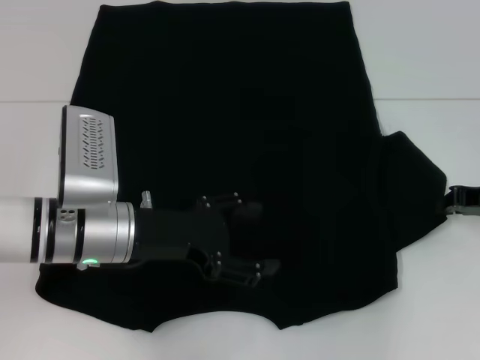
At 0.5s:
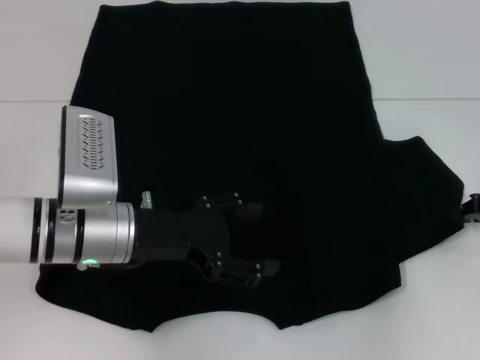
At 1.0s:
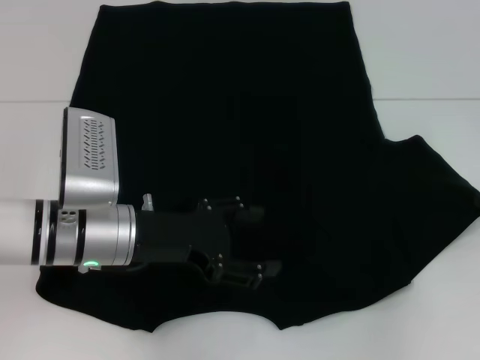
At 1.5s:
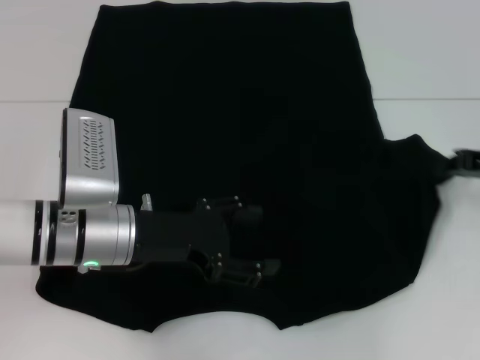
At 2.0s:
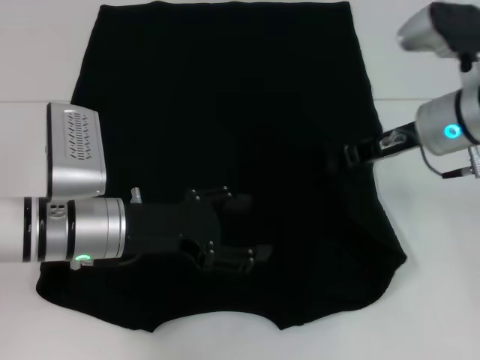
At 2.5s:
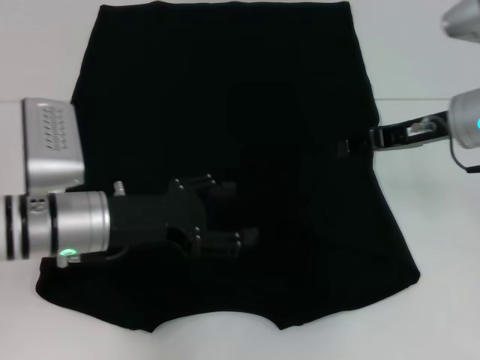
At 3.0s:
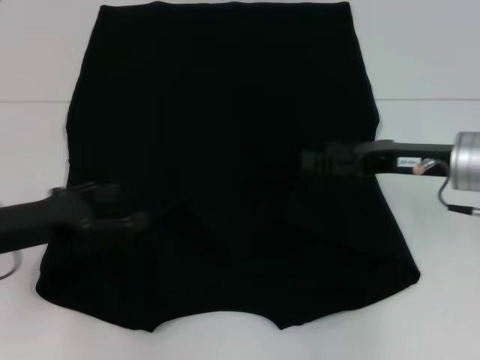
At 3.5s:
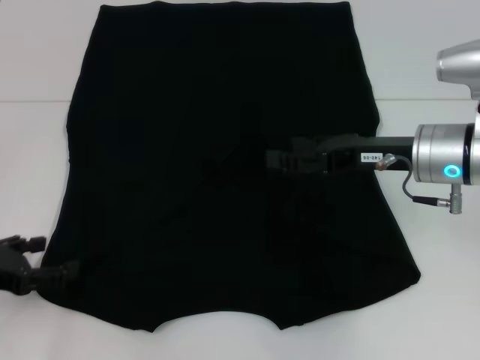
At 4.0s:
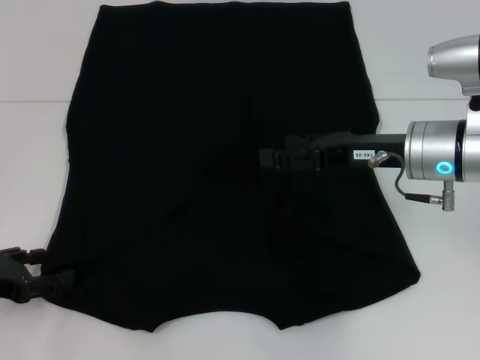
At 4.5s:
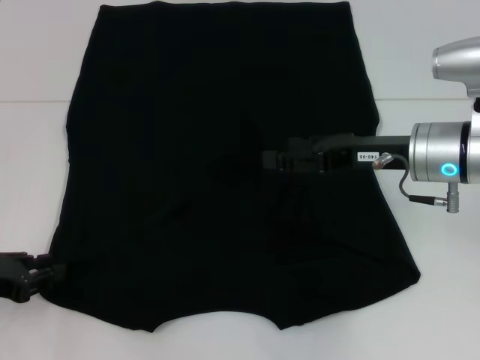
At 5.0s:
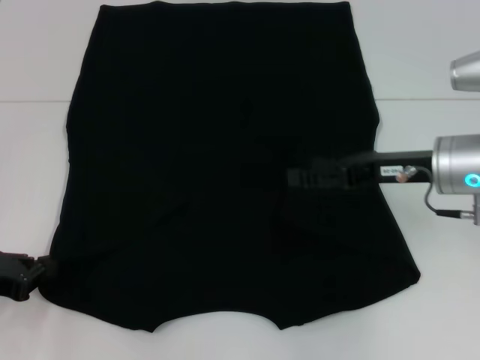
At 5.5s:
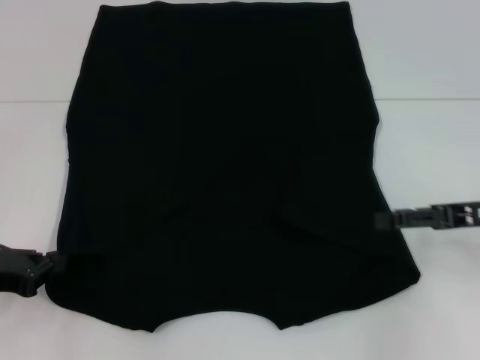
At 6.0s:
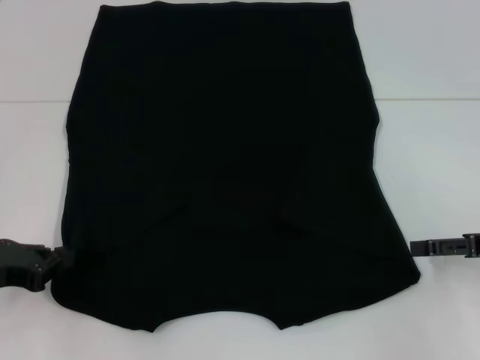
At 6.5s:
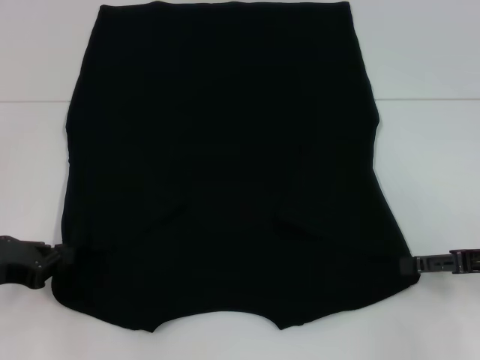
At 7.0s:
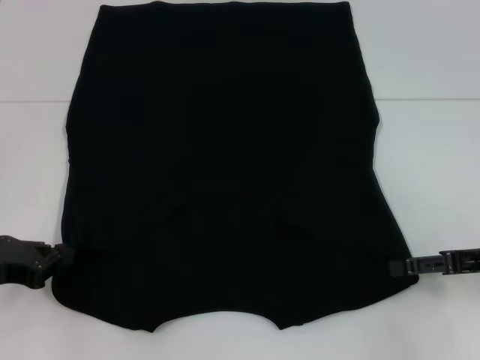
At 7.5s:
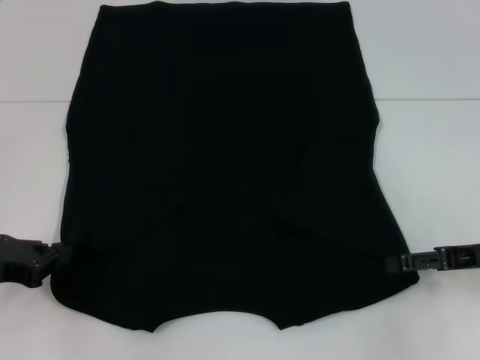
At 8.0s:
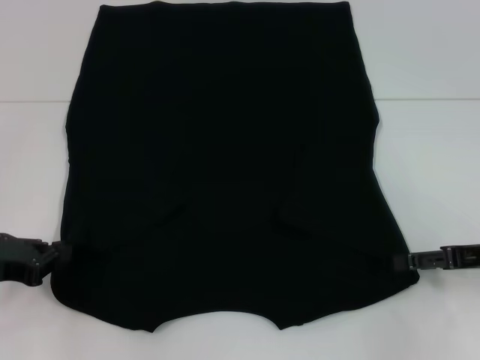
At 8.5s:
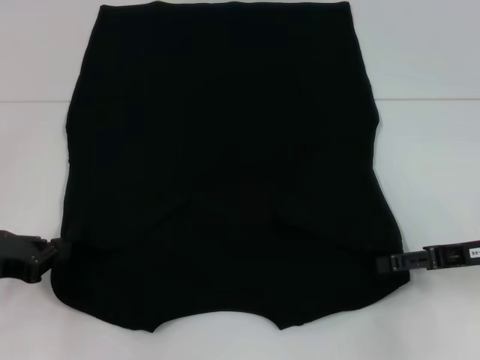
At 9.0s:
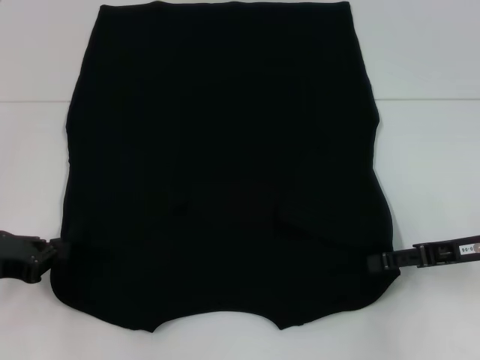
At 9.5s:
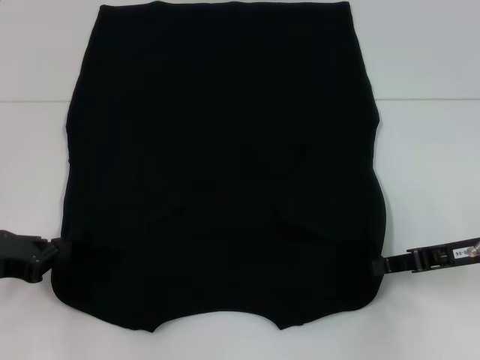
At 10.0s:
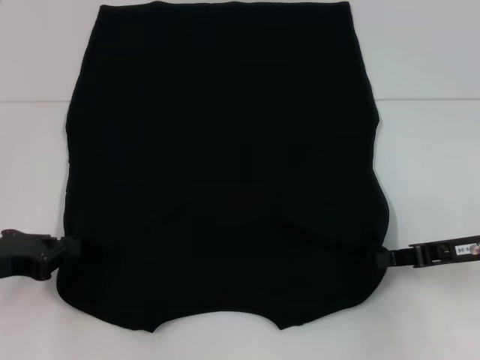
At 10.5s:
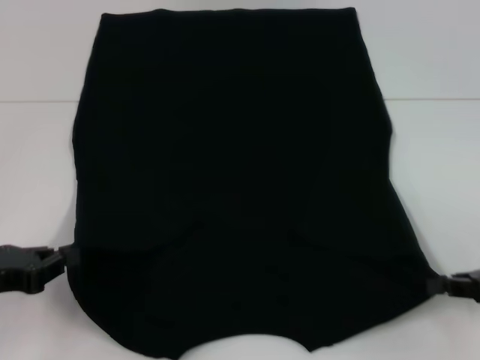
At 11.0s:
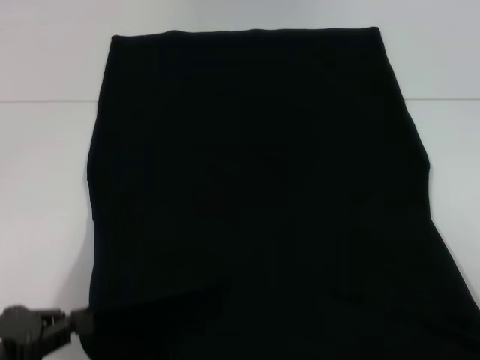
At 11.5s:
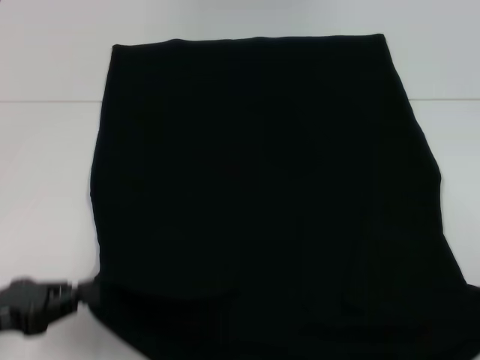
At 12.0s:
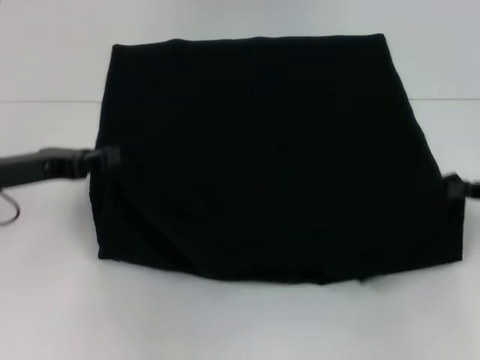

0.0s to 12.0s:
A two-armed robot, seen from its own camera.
Step, 0.0s to 2.0s: Fold the bottom right sleeve with your right hand.
Step, 2.5s to 5.0s: Grab the bottom left corner with your left hand.
Step, 5.5s to 9.5s: Grab the bottom right corner with your right hand.
0.0s to 2.0s: The right gripper shifts roughly 15 cm to the left and upward.
2.0s to 4.0s: The left gripper shifts about 15 cm to the left. Meanwhile the right gripper opens up.
4.0s to 6.0s: The right gripper goes roughly 15 cm to the right and backward, while the left gripper closes up.
6.0s to 8.0s: The grippers make only small movements.
8.0s to 10.0s: The right gripper closes up.
10.0s to 12.0s: The right gripper heads to the right, covering roughly 5 cm, and travels backward and back again, some 10 cm each way, while the left gripper travels forward by approximately 5 cm.

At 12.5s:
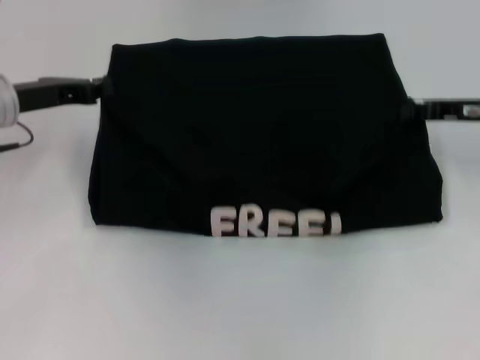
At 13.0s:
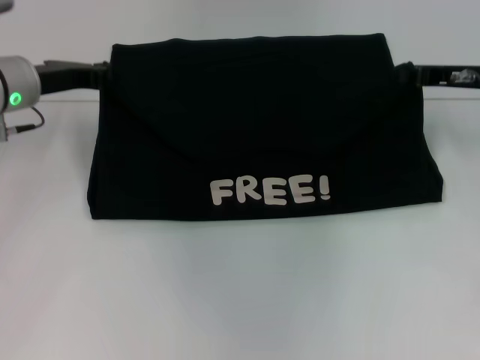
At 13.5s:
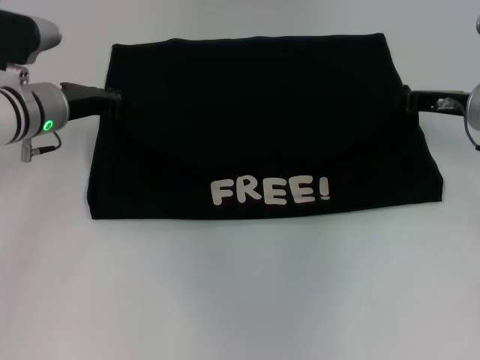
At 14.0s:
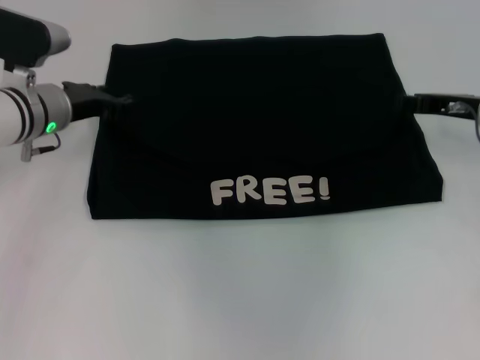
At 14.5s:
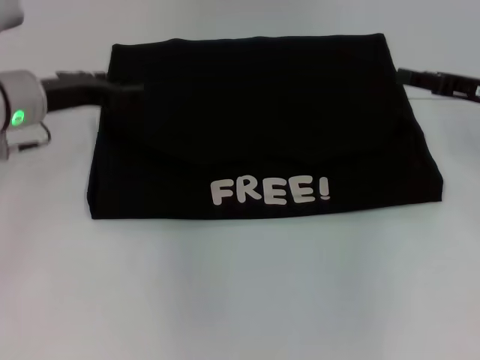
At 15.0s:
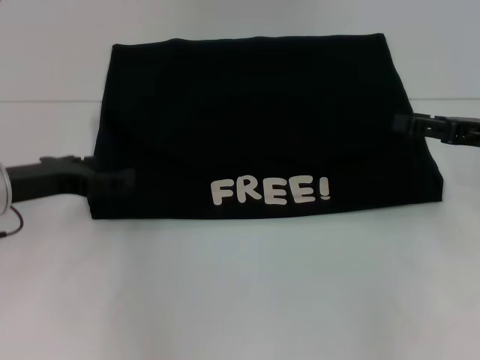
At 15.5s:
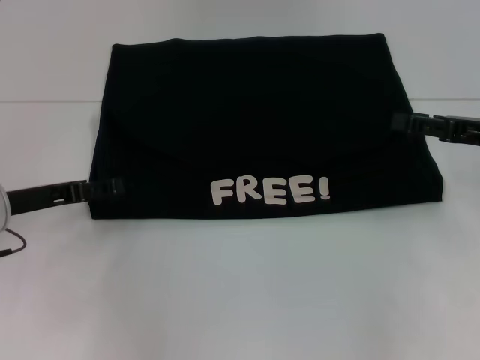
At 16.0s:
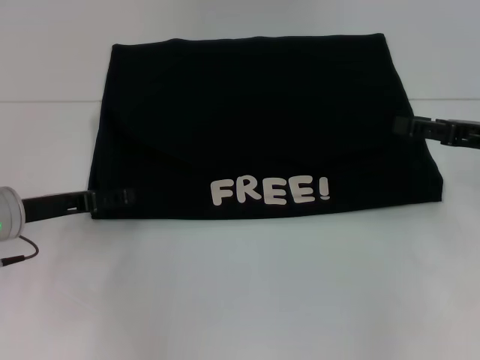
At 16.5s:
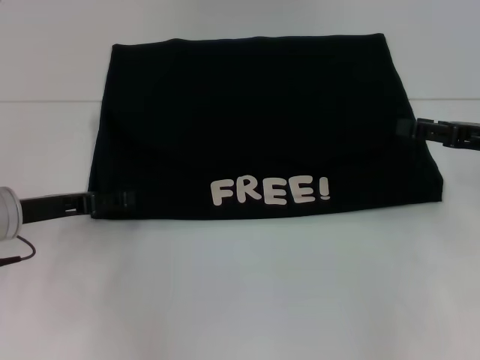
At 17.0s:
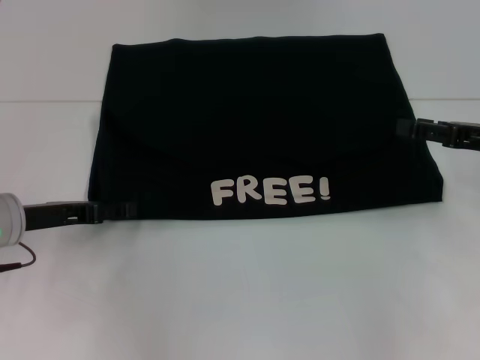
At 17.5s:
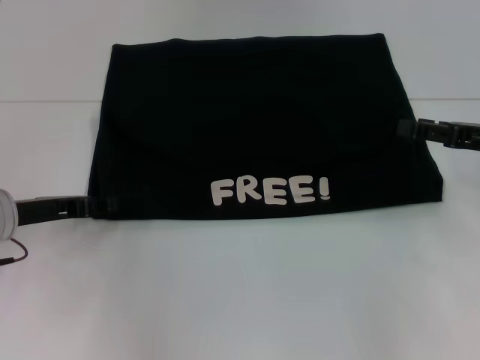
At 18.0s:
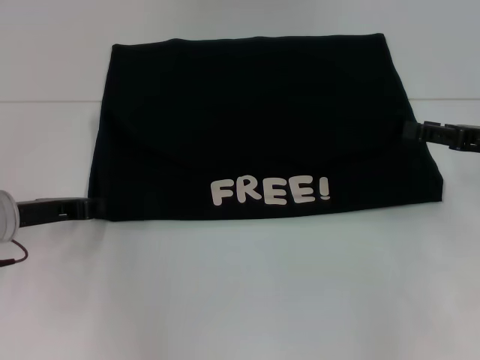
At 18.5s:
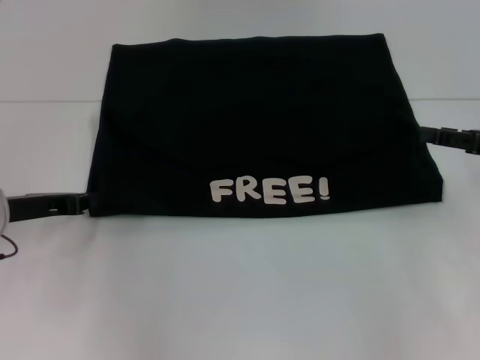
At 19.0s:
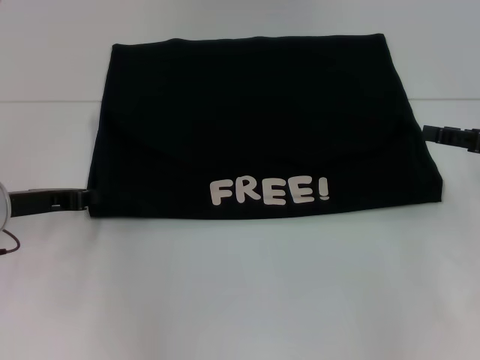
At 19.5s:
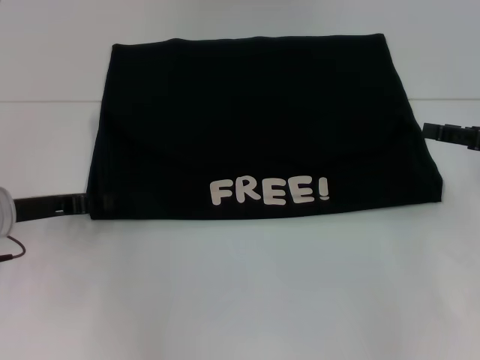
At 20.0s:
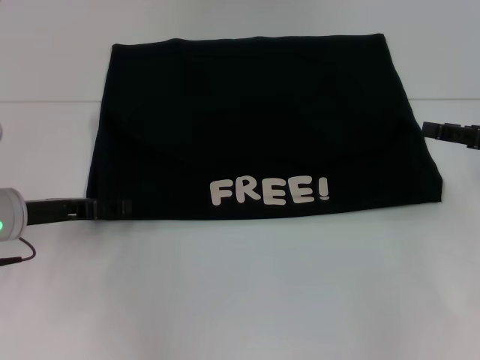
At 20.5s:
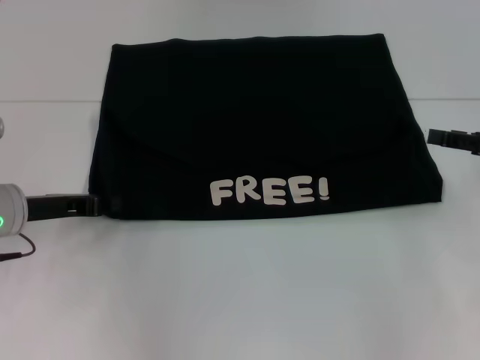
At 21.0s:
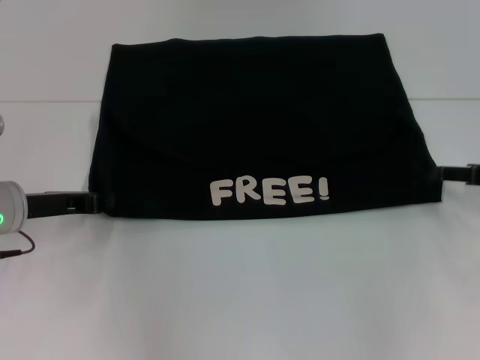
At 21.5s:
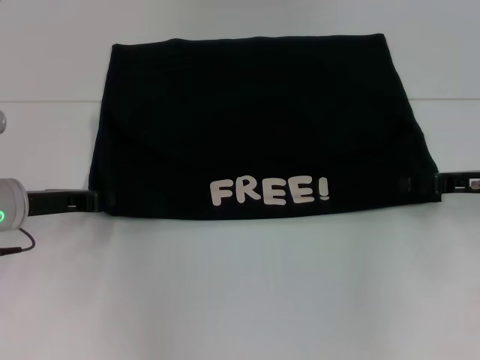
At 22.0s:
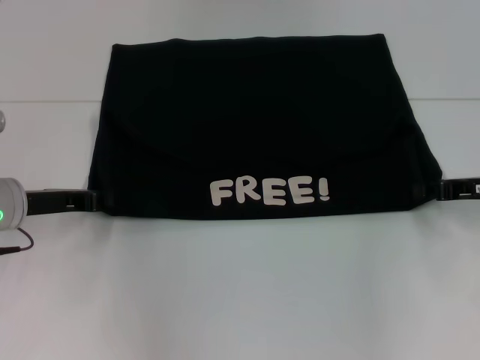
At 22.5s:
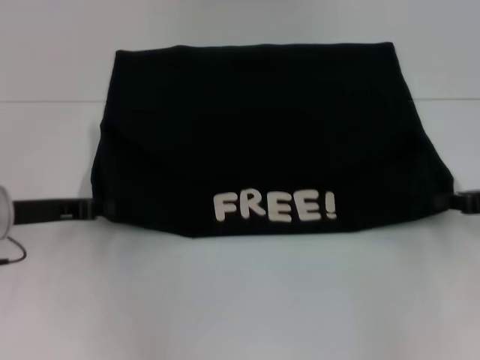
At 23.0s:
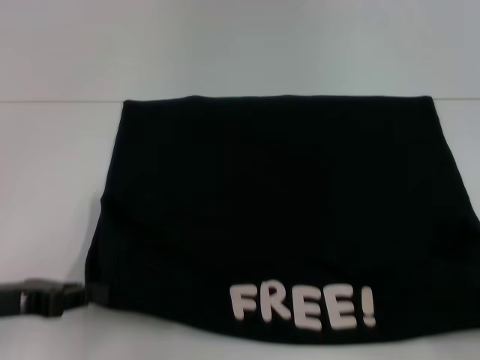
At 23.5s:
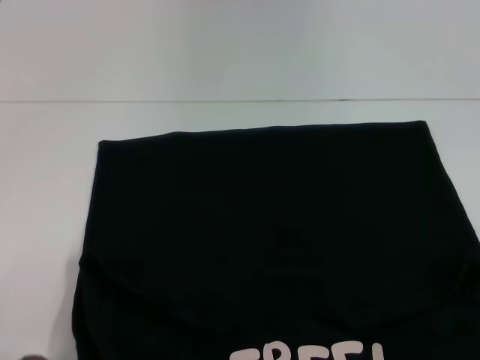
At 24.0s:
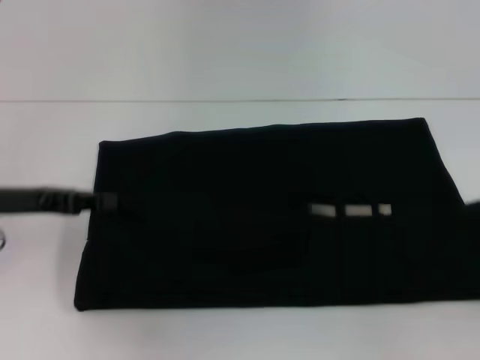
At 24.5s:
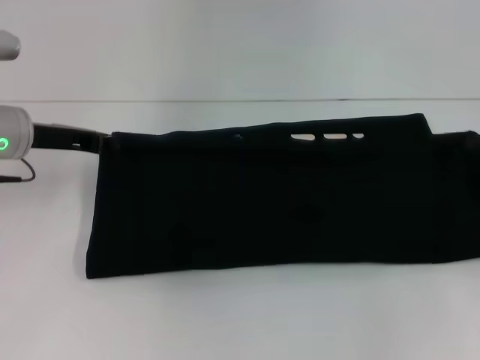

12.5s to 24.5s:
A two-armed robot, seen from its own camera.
Step, 14.0s to 23.5s: Pull the clothes with your left hand.
Step, 14.0s to 23.5s: Pull the clothes with your right hand.
12.5s to 14.5s: The right gripper opens; the left gripper opens its fingers.
14.5s to 16.5s: The left gripper moves backward and downward, some 10 cm.
16.5s to 18.5s: The left gripper closes.
18.5s to 20.5s: The left gripper opens, then closes again.
20.5s to 22.5s: The right gripper closes.
22.5s to 24.5s: The right gripper goes backward and returns, roughly 20 cm each way. The left gripper goes backward and returns, some 15 cm each way.

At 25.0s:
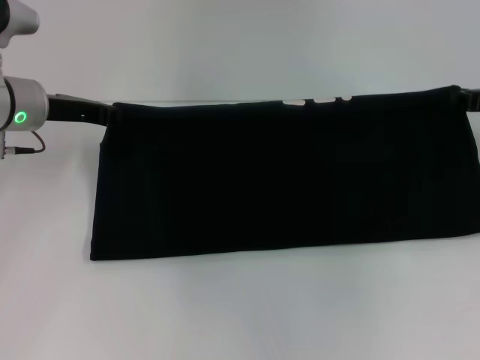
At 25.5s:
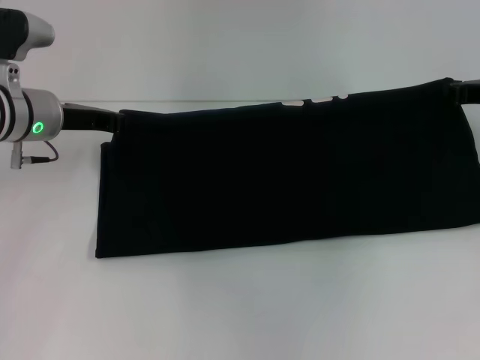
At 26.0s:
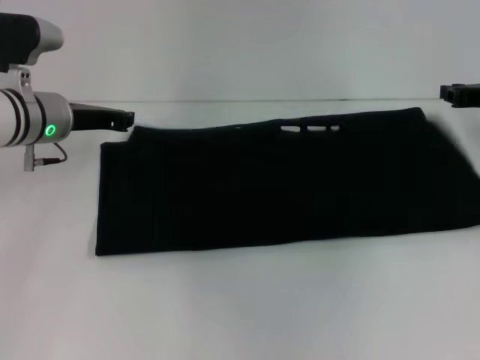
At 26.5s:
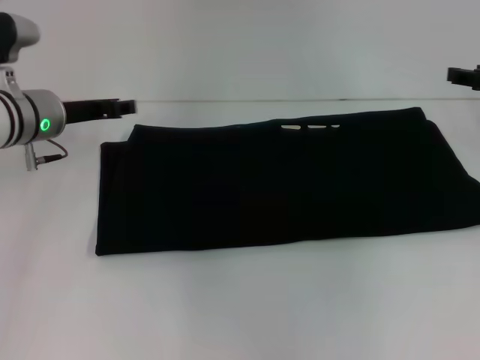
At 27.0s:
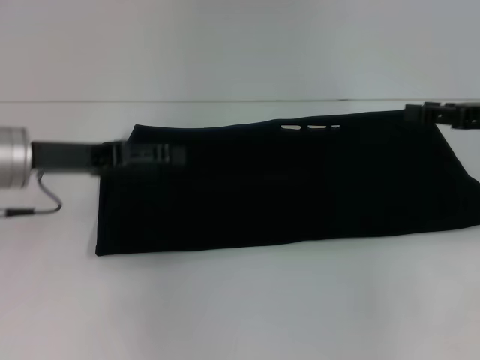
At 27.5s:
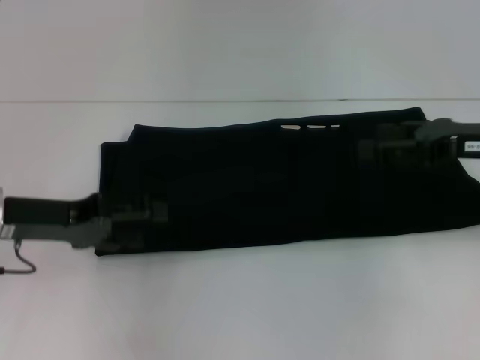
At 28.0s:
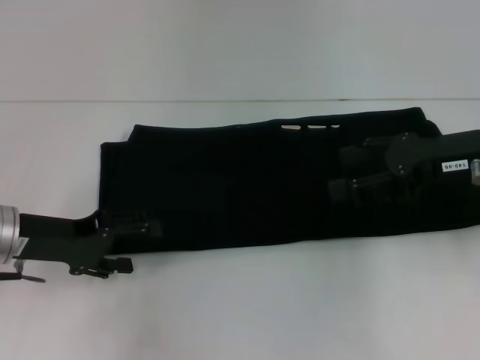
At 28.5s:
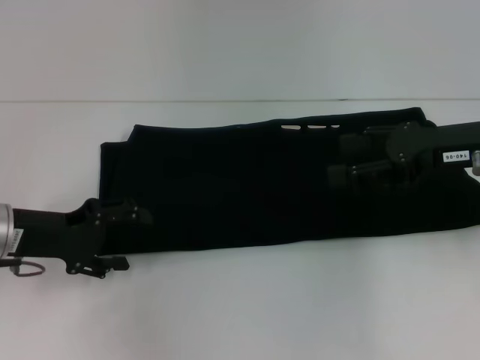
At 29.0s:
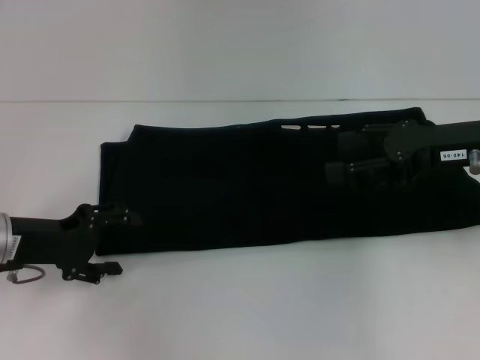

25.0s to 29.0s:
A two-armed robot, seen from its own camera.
25.0s to 27.0s: The left gripper shifts about 10 cm backward, and opens. The right gripper opens up.
27.0s to 29.0s: The right gripper goes roughly 5 cm to the left, while the left gripper is displaced downward by about 5 cm.
